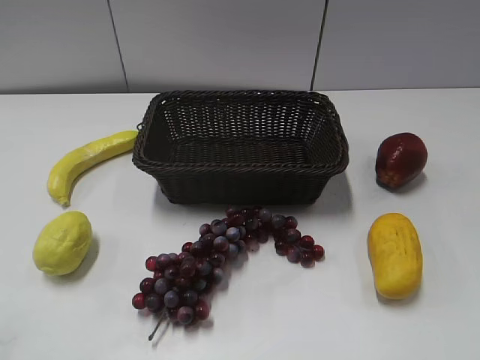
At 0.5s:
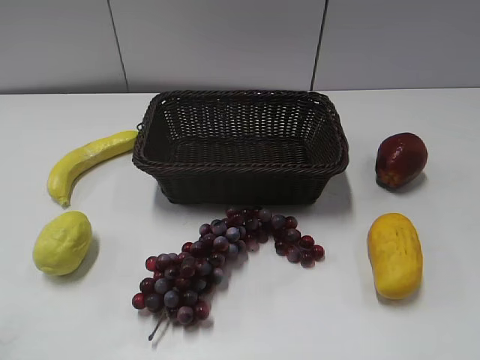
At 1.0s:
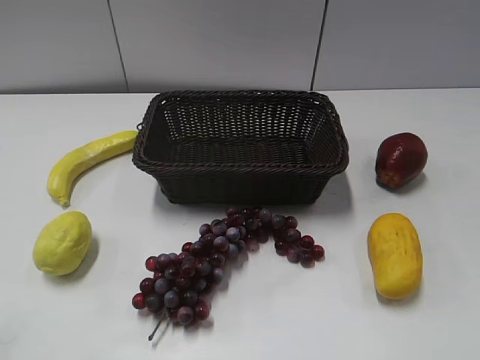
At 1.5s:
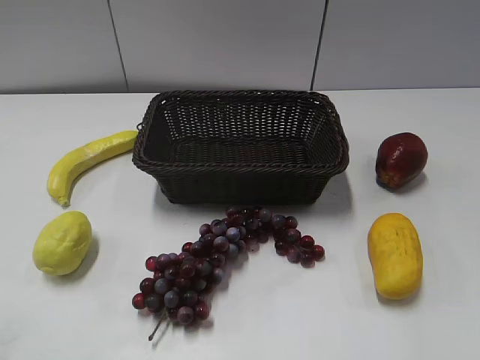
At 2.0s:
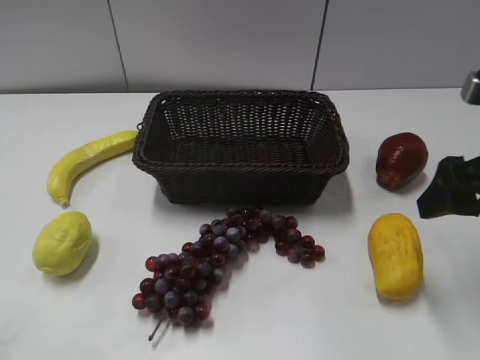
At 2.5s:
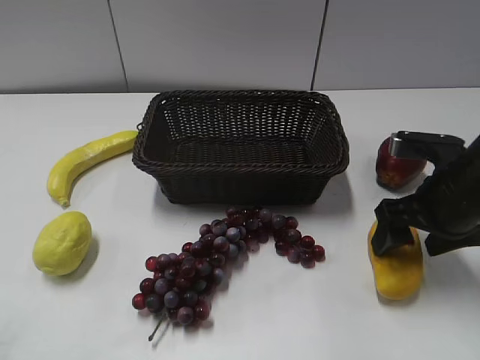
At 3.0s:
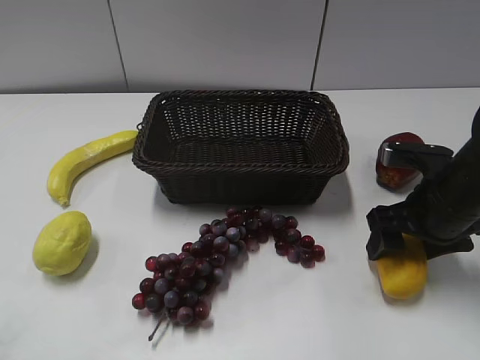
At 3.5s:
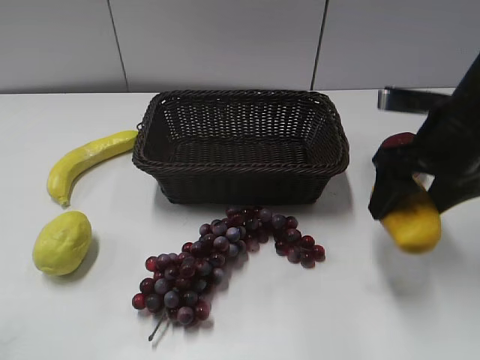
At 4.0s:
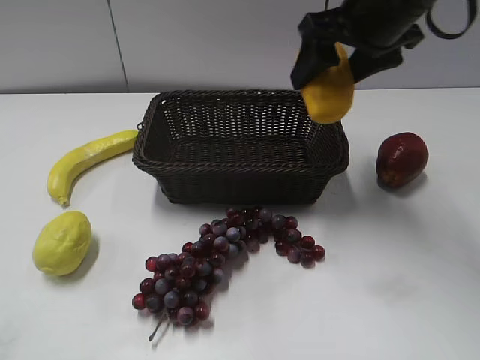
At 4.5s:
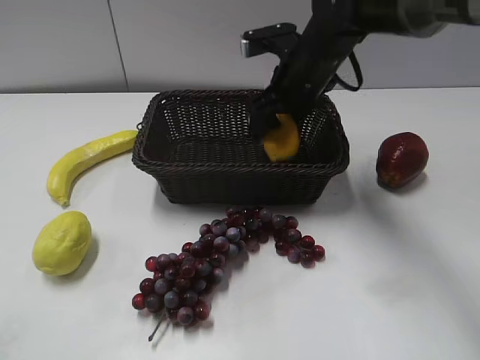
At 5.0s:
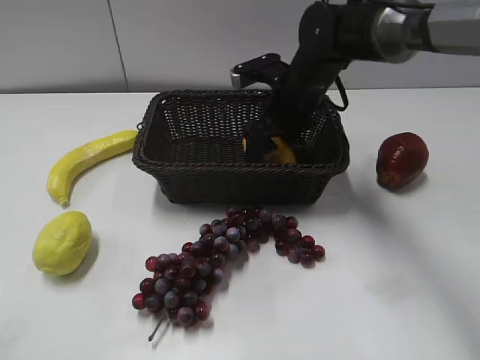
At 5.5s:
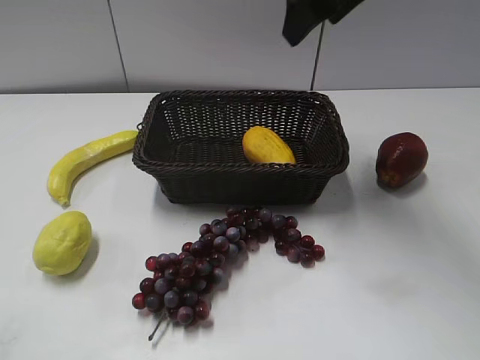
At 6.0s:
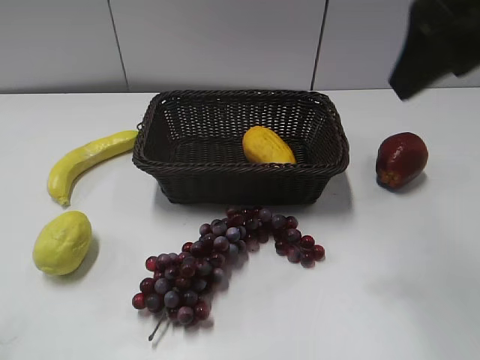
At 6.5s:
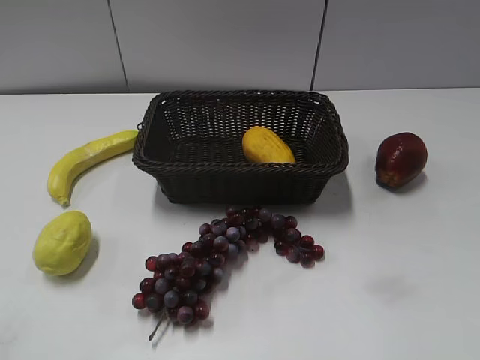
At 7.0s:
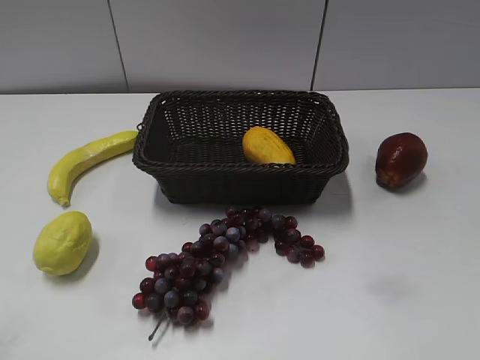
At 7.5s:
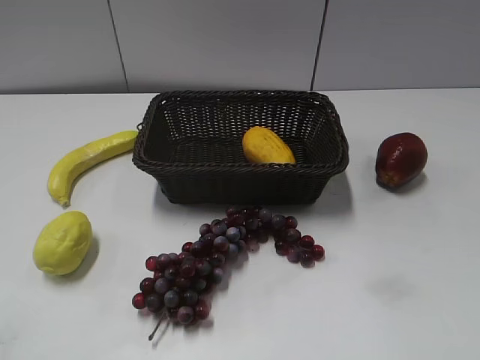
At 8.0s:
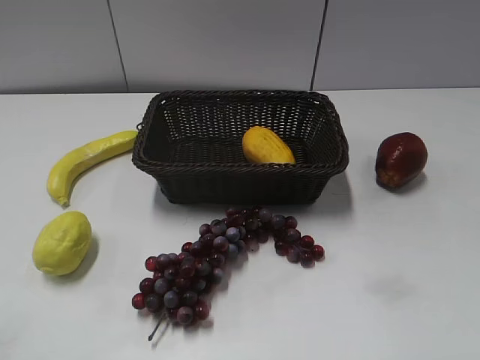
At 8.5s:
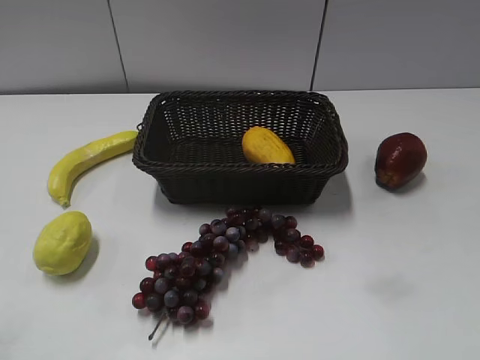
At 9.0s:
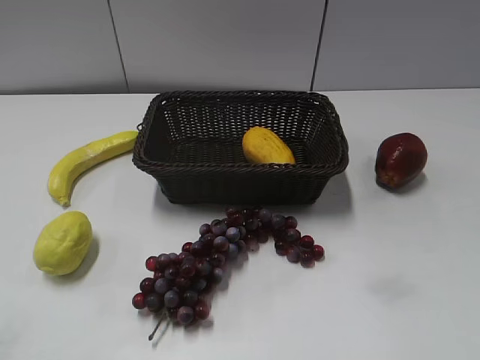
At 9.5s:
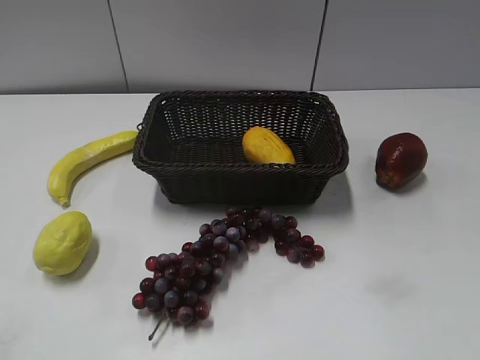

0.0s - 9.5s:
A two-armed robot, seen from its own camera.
Step, 2.0s - 3.0s: Grasp the mango with right gripper.
Step, 3.5s - 5.0s: Place the mango in the basket with right gripper.
2.0s - 4.0s: The right gripper heads forward, to the left and upward, covering about 20 cm.
4.0s - 5.5s: The right gripper goes downward and returns, about 15 cm each way.
5.5s - 7.5s: The right gripper goes approximately 40 cm backward and to the right.

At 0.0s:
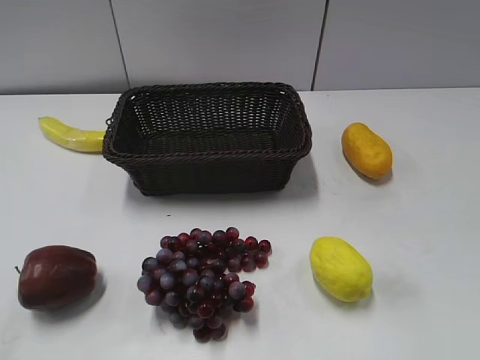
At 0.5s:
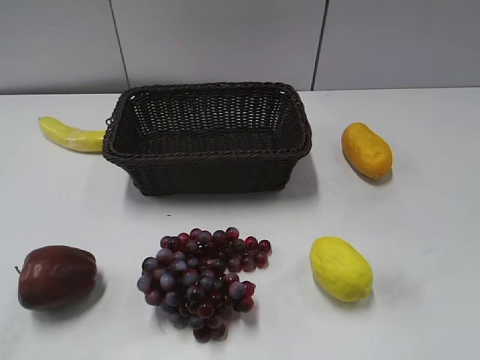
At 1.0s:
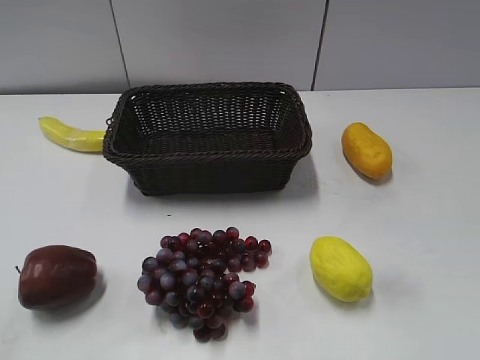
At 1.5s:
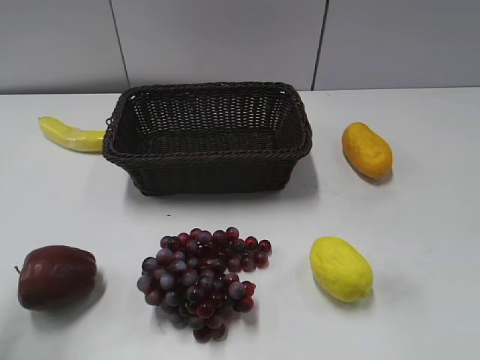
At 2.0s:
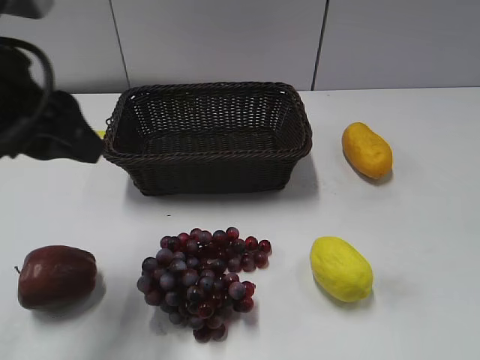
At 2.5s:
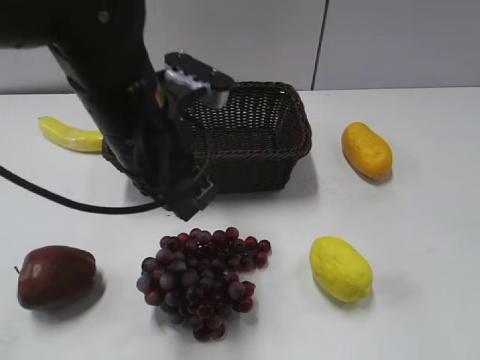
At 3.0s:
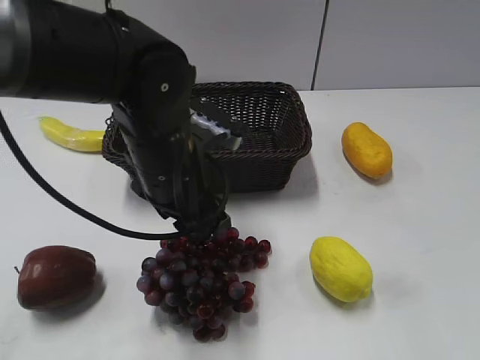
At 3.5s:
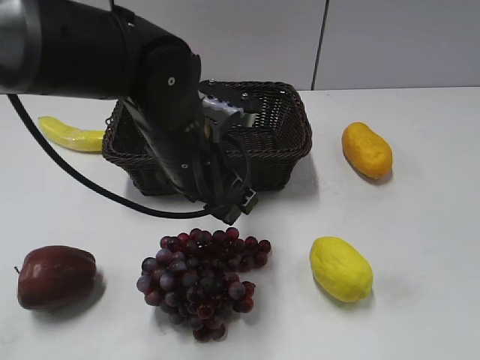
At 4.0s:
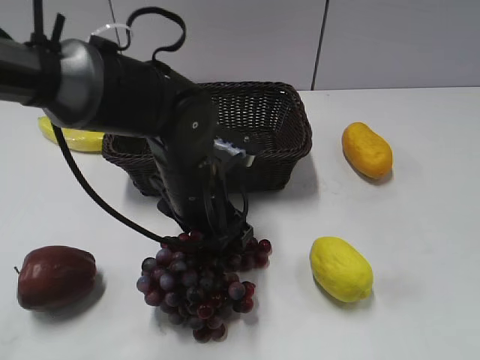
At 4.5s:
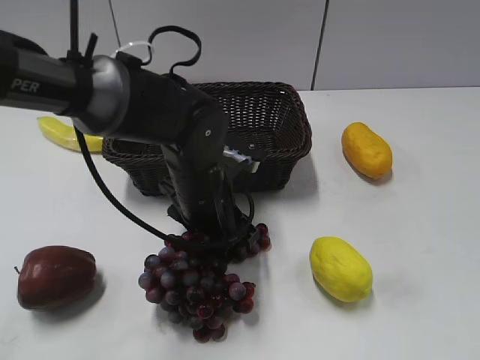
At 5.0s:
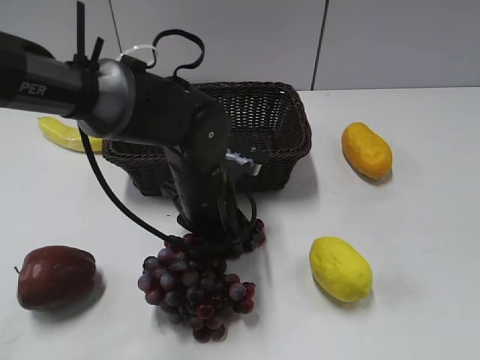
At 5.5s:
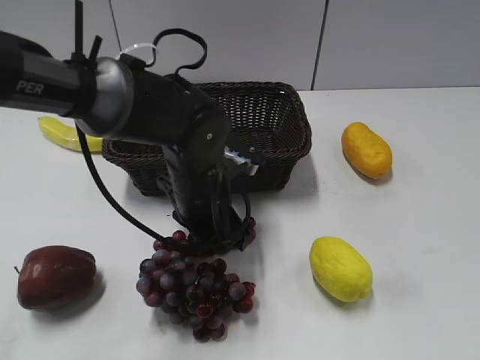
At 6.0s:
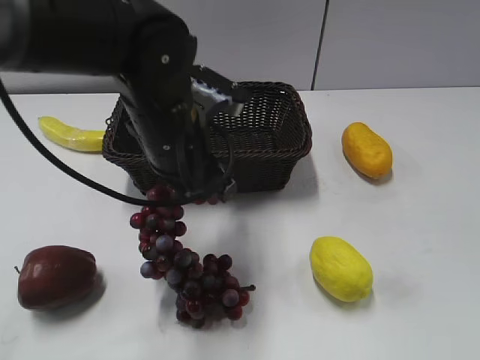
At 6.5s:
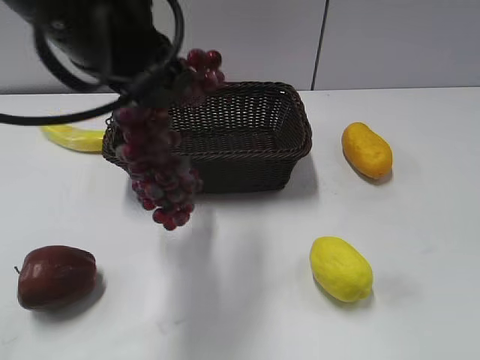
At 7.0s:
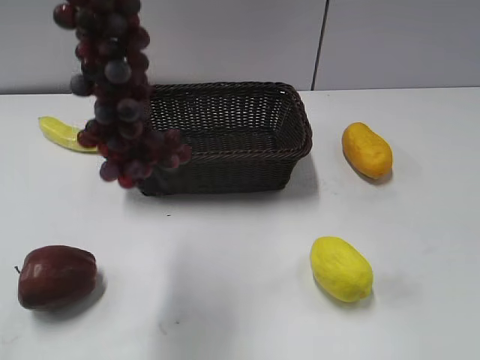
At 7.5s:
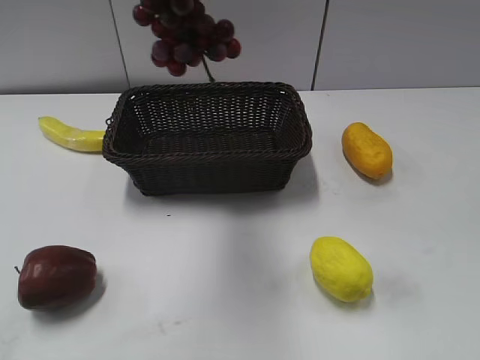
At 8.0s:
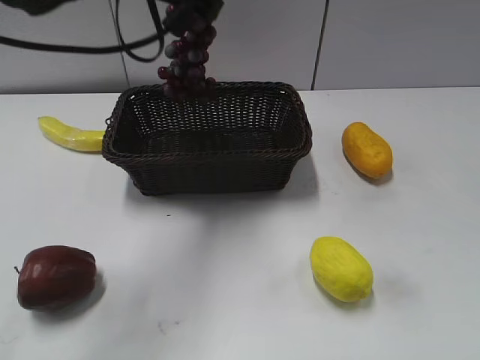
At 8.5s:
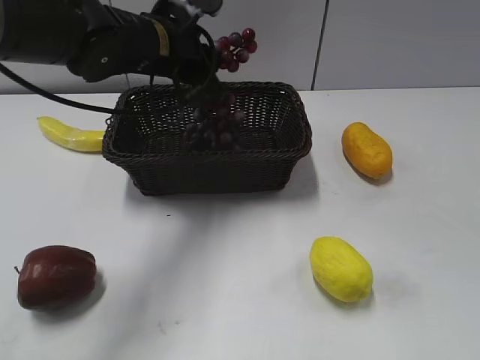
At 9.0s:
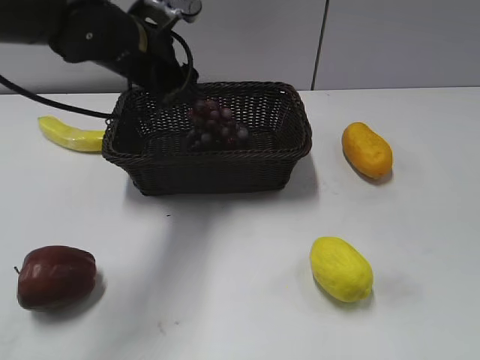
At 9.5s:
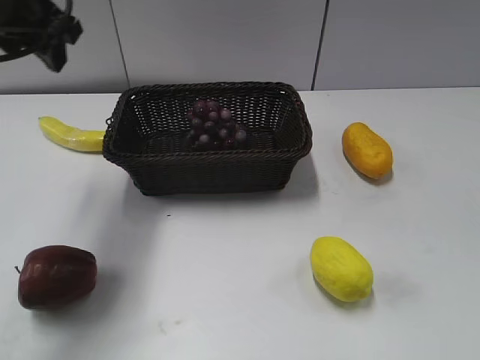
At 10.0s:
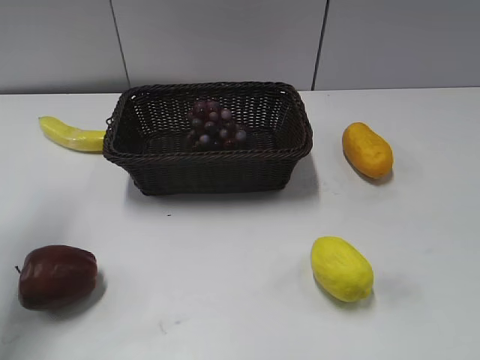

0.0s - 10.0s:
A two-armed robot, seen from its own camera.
Step, 2.0s - 6.0s: Grasp the grape with left gripper.
Step, 6.5s - 9.0s: Place the grape in the basket with left gripper.
2.0s - 4.0s: The left gripper is displaced downward and to the right by some 20 cm.
4.0s - 6.0s: The left gripper travels upward by some 10 cm, and closes.
6.0s - 8.0s: The left gripper travels upward and forward by some 15 cm.
8.0s - 10.0s: The left gripper travels to the left by approximately 20 cm, and opens.

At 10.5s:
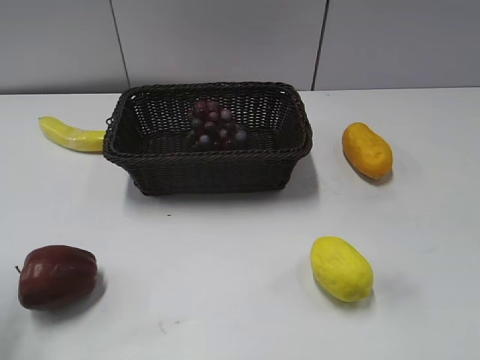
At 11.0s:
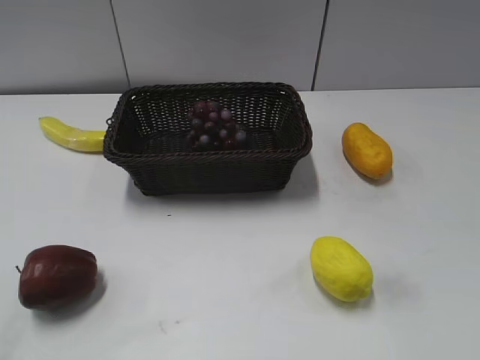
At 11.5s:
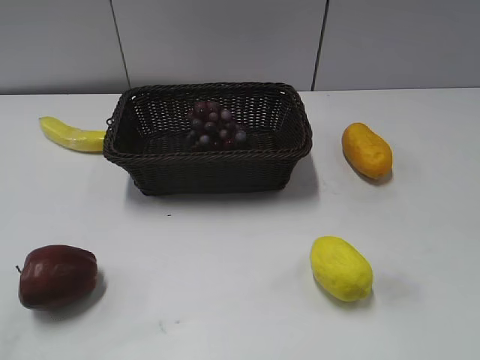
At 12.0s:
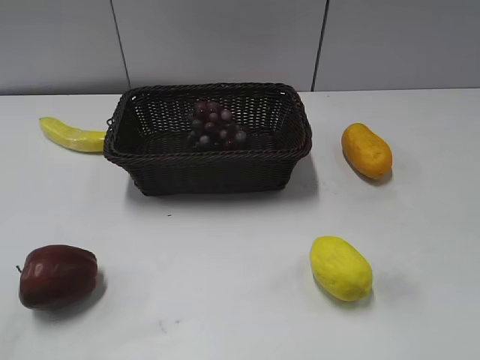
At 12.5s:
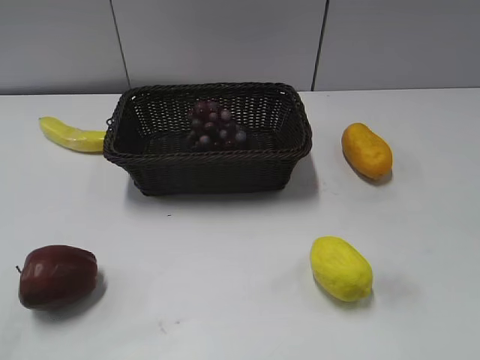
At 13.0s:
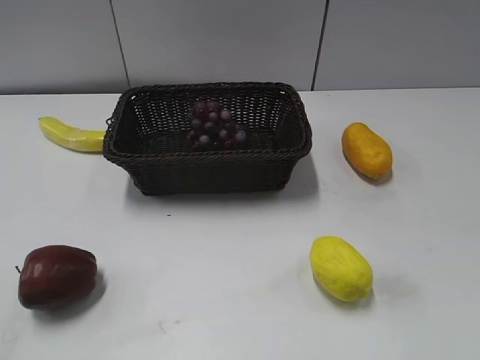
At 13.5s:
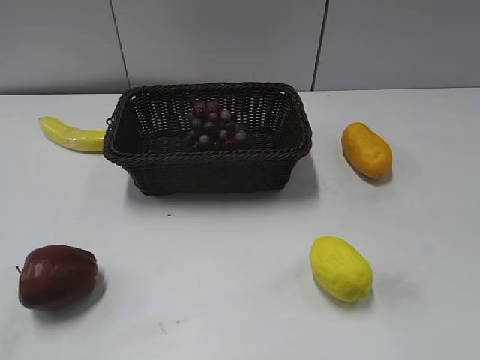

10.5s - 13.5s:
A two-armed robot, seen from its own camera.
10.5s - 12.0s: The left gripper travels backward by approximately 15 cm.
12.0s - 13.5s: Both grippers stay put.

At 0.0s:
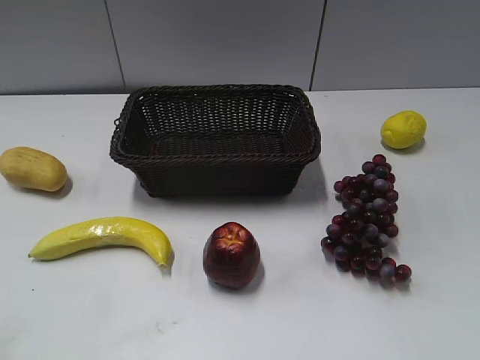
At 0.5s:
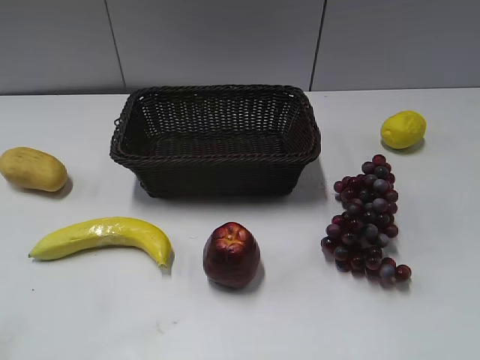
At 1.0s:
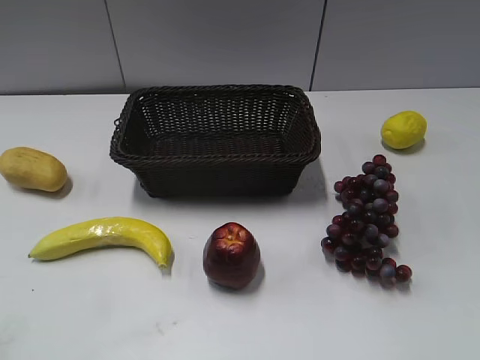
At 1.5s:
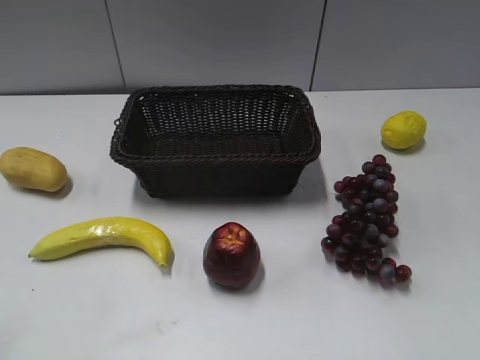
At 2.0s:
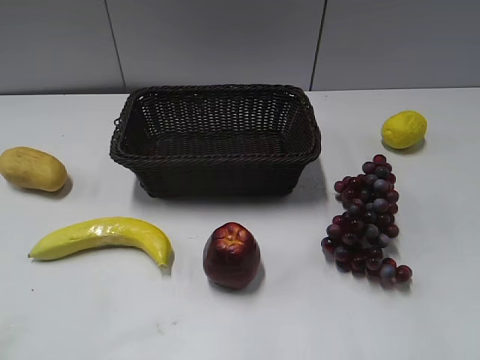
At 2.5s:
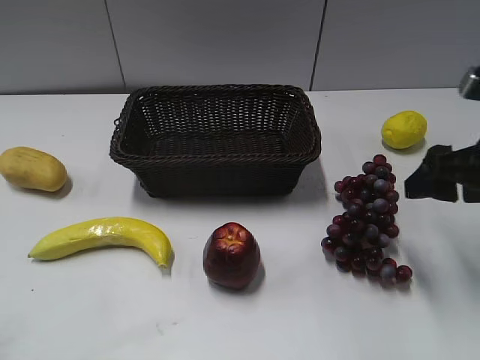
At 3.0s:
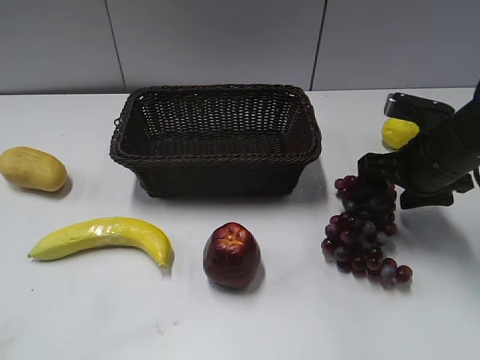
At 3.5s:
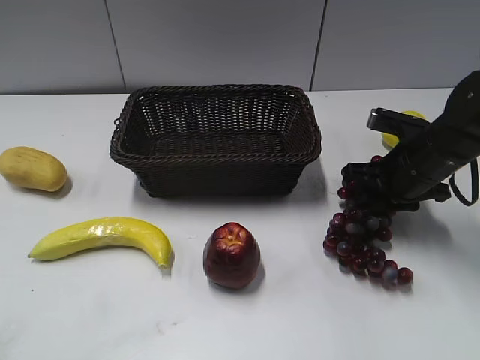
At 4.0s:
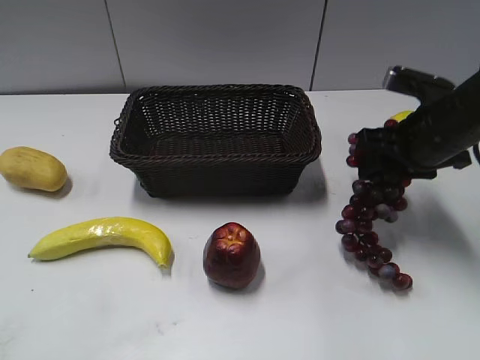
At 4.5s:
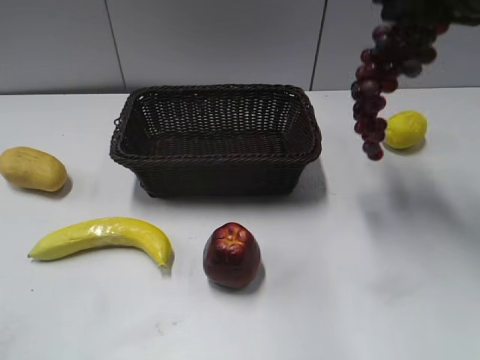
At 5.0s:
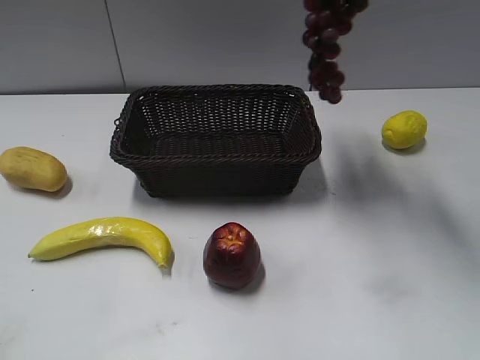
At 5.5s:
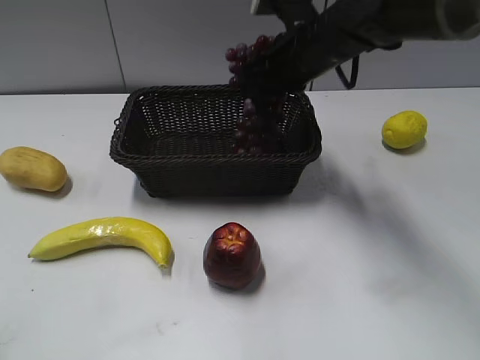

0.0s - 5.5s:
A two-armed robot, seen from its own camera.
Step, 2.5s - 3.0s: Grasp the grape with right gripper.
2.0s - 3.5s: The right gripper goes approximately 30 cm forward and downward, and closes.
3.5s - 5.5s: The right gripper travels to the left, upward and forward by about 20 cm.
